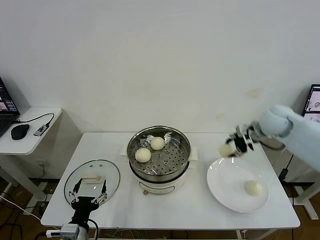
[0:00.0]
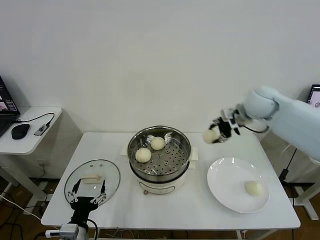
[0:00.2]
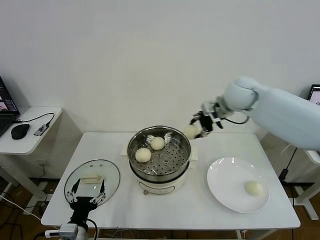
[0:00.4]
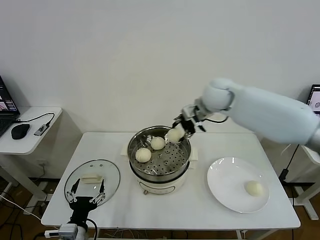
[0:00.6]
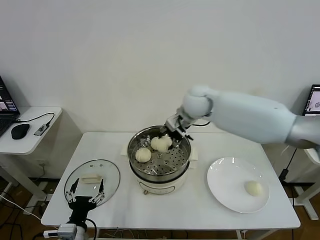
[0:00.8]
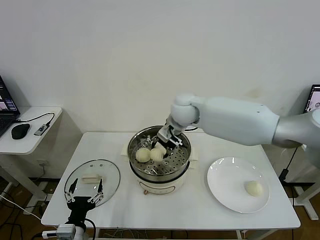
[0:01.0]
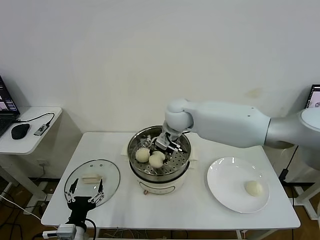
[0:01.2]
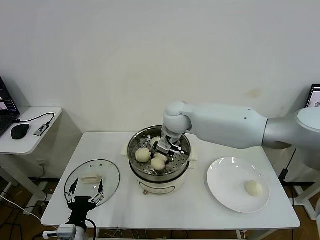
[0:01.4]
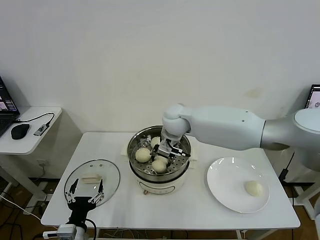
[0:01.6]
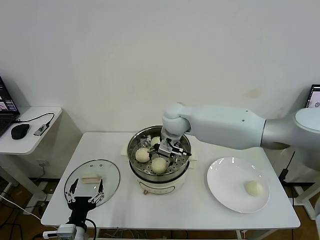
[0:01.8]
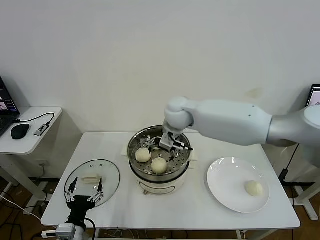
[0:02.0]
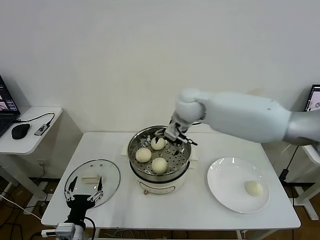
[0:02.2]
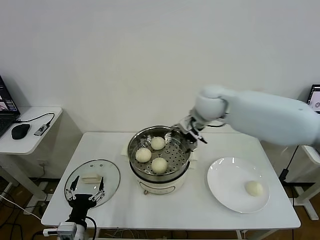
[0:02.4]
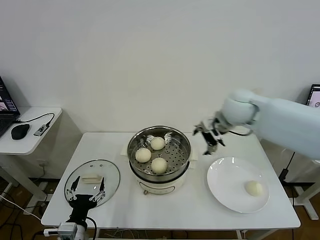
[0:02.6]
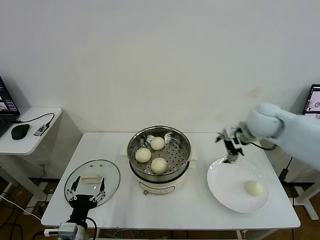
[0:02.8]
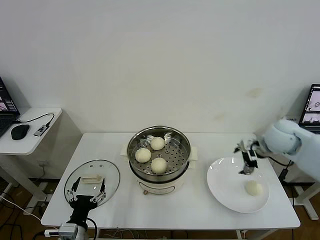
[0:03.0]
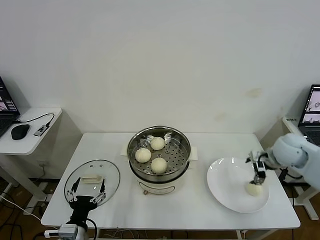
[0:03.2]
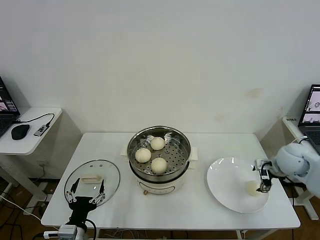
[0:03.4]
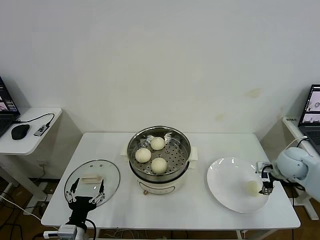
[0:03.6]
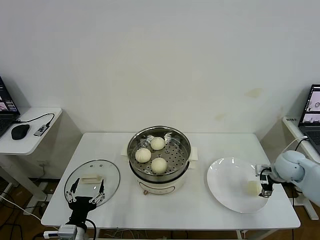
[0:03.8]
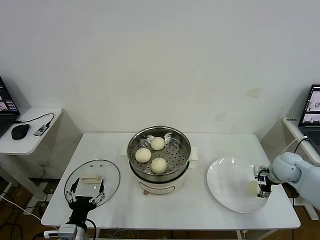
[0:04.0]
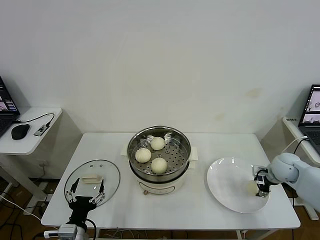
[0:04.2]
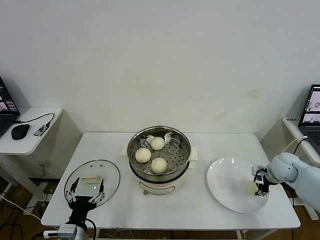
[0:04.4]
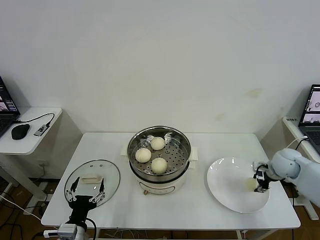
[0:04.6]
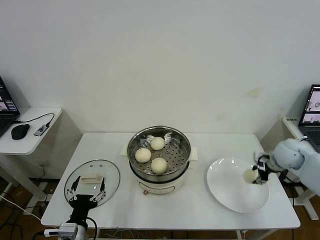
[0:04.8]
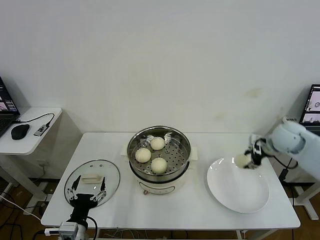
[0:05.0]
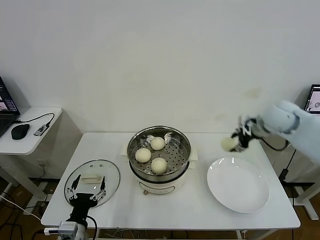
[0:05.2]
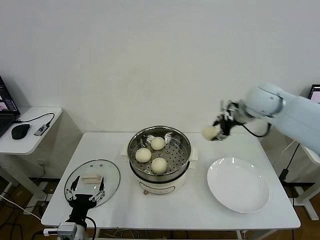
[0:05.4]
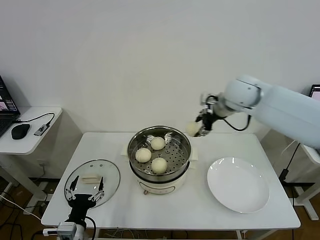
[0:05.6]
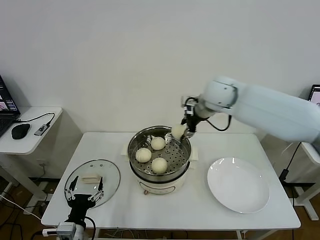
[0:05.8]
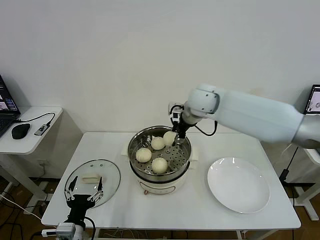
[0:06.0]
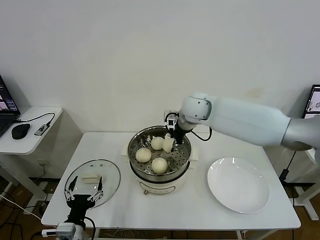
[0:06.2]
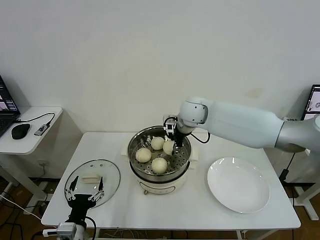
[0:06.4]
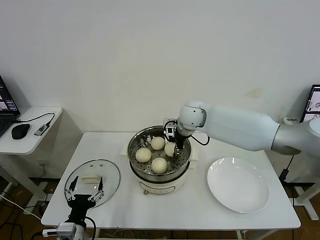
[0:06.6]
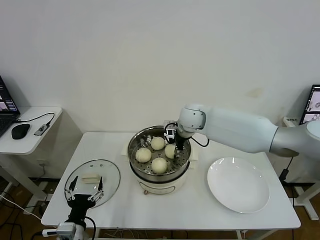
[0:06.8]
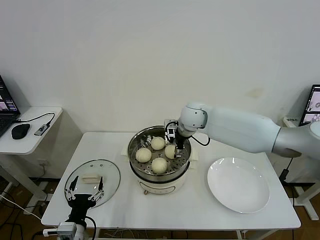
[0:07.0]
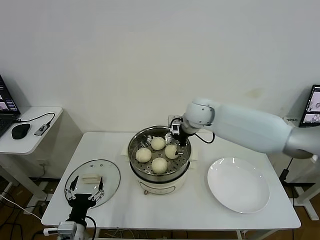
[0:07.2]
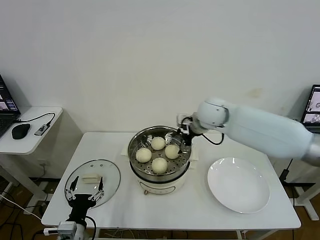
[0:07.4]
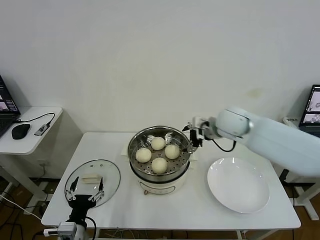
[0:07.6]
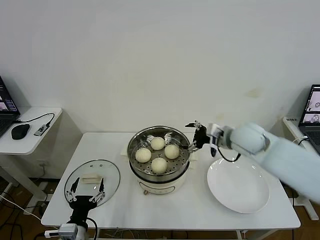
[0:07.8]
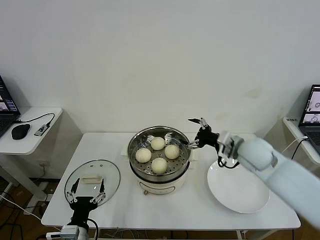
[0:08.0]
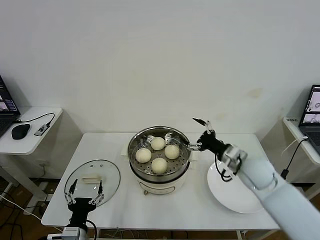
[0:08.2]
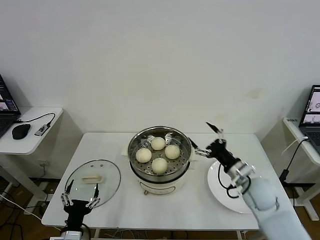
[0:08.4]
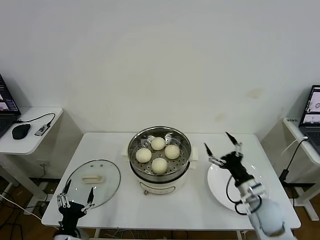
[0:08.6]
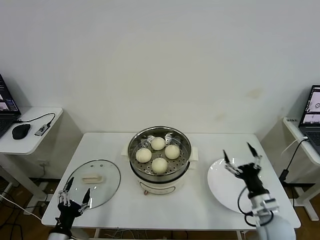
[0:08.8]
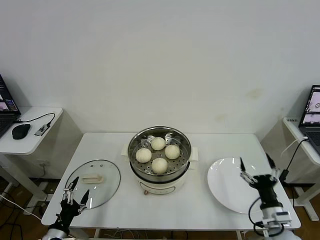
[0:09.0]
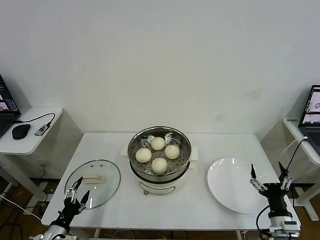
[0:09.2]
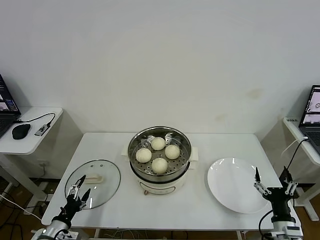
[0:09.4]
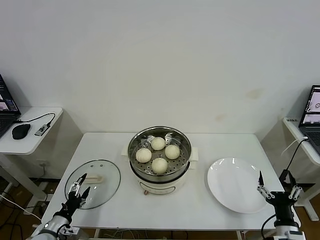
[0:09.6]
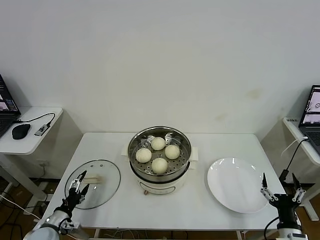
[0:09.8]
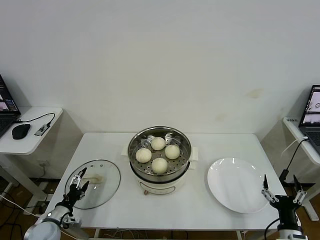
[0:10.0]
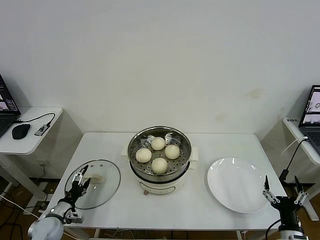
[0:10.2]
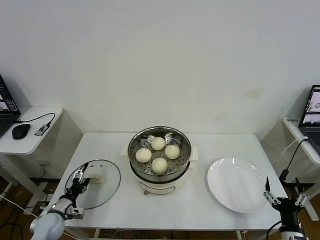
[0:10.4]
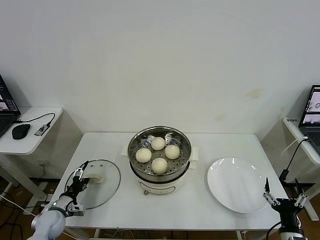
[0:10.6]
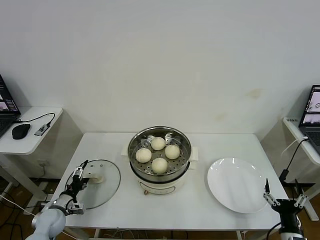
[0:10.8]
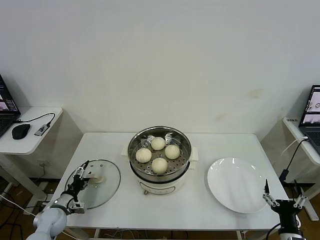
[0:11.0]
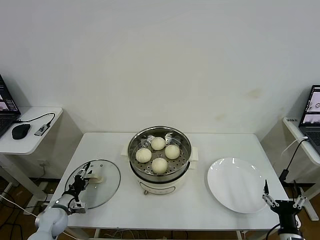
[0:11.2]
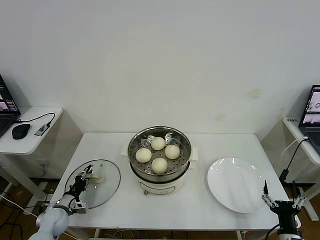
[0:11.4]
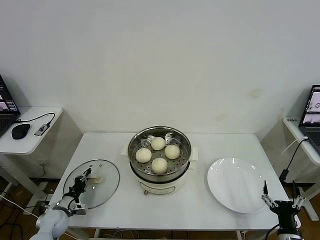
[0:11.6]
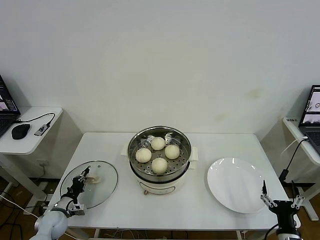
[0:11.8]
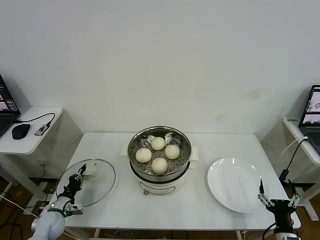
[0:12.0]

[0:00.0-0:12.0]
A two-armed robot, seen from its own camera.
Task of the whole recording: take steamed baozi put them in steamer then cover it.
Step, 0.0 to 1.8 s: Place the baozi on the steamer with right gripper.
Step, 2.0 to 4.4 s: Grasp the baozi in the plate with right gripper.
Step, 4.6 to 7.2 s: Place the baozi on the steamer with right gripper.
Step, 7.4 to 11.8 s: Grasp the pot lid with left gripper.
0.0 to 1.6 s: The right gripper is displaced to the left by approximately 30 cm.
1.6 to 3.0 s: The right gripper goes about 30 cm to the right, and opens.
3.0 to 4.4 s: The right gripper travels downward and to the right by approximately 15 cm, and closes up.
4.4 to 6.0 s: The right gripper is displaced to the left and upward by approximately 35 cm.
6.0 to 7.6 s: The right gripper is displaced to the right and backward by approximately 10 cm, and opens its fingers.
7.6 to 9.0 s: The left gripper goes roughly 10 cm to the left. Meanwhile the right gripper goes approximately 40 cm backward, downward and to the right.
9.0 to 10.4 s: The right gripper travels backward by roughly 5 cm, while the left gripper moves forward, roughly 15 cm.
10.4 to 12.0 s: The left gripper closes up.

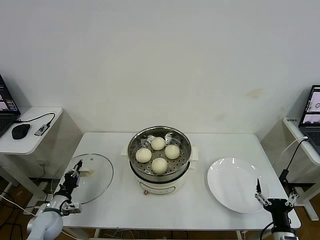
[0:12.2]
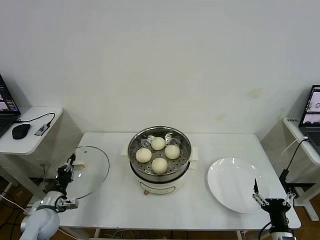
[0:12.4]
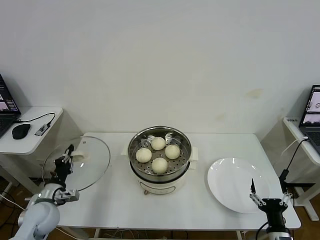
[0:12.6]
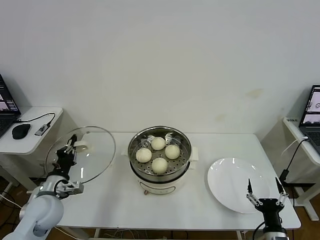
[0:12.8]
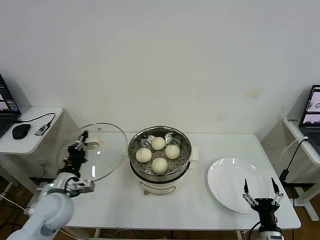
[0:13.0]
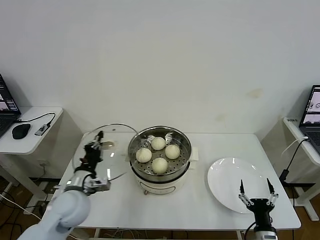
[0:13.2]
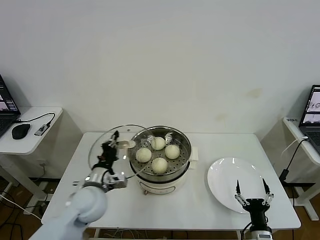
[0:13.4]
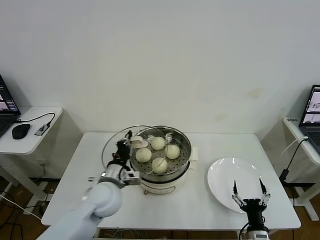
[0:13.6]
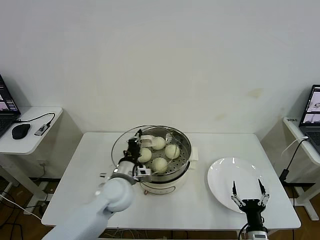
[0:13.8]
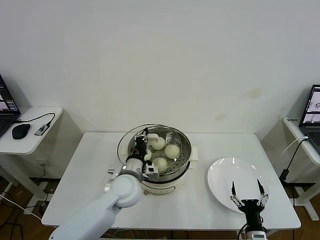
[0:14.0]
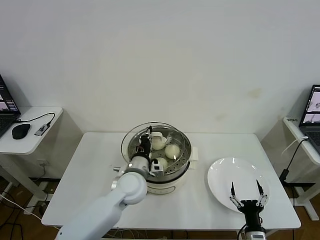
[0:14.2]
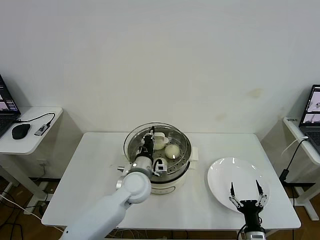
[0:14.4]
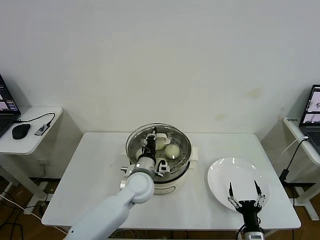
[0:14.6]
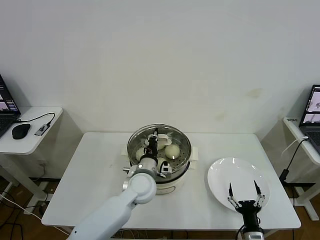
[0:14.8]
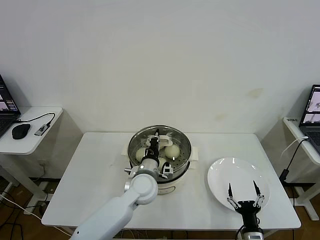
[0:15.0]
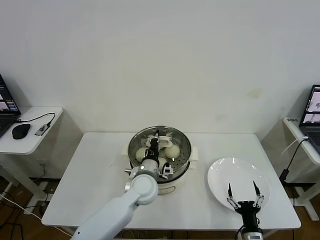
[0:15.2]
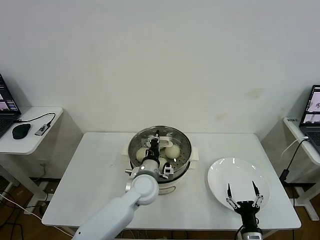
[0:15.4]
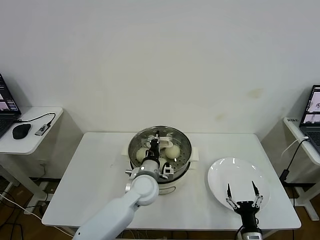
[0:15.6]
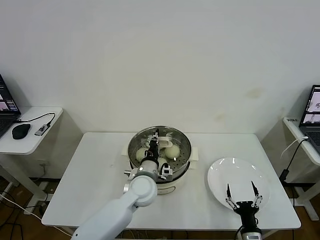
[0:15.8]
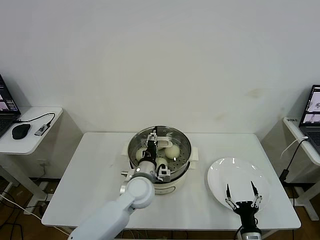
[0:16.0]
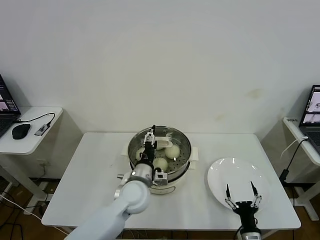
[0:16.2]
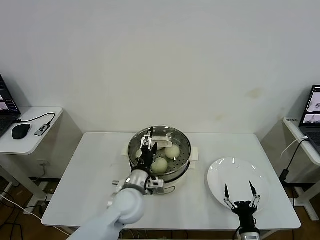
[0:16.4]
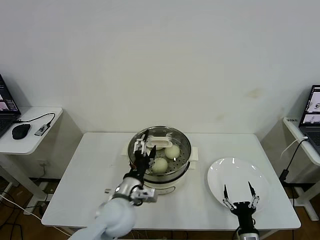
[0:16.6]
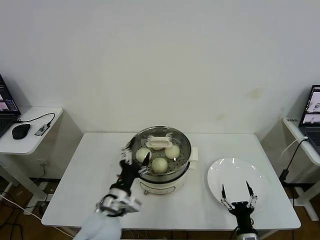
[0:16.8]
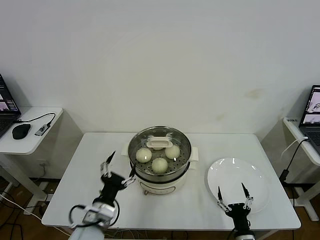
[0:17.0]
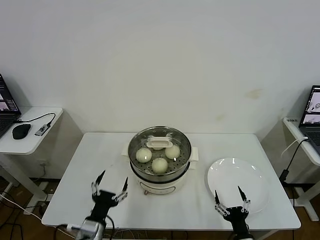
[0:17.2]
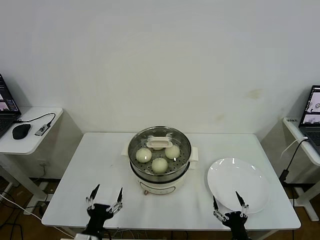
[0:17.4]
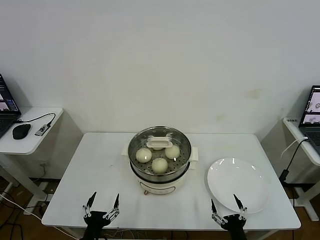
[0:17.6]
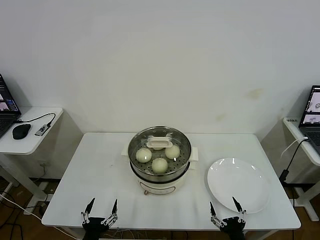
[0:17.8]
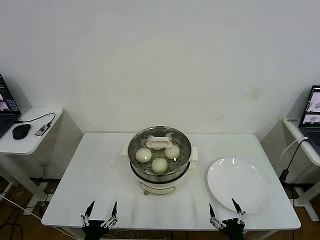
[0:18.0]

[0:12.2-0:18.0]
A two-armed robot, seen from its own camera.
Task of the whole recording: take steamed baozi put them in steamer then cover it.
Step, 12.2 to 16.2 s: Place the pot lid on the steamer with left gripper.
12.2 to 13.6 s: The right gripper shifts about 5 cm to the left; the left gripper heads to the right and upward, covering approximately 30 cm.
13.6 to 15.0 s: The left gripper travels to the right and forward by approximately 15 cm.
15.0 to 16.6 s: The left gripper goes roughly 10 cm backward, and opens its fingers.
16.6 to 18.0 s: The right gripper moves backward, some 5 cm. The left gripper heads backward, to the left and downward, covering about 25 cm.

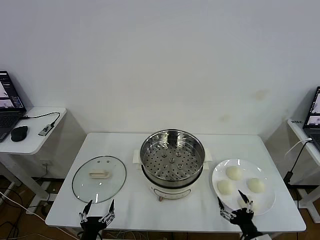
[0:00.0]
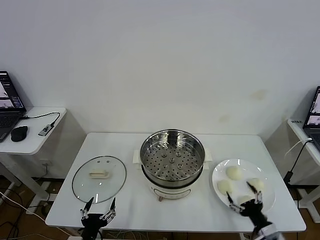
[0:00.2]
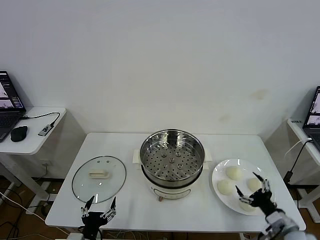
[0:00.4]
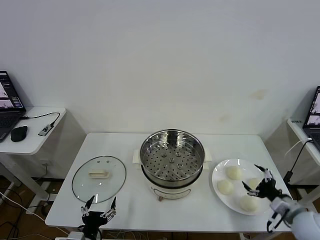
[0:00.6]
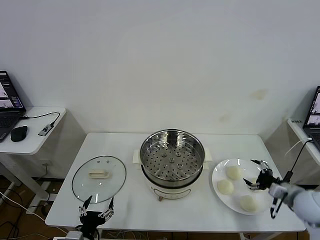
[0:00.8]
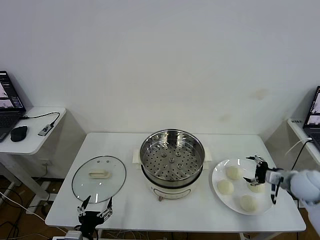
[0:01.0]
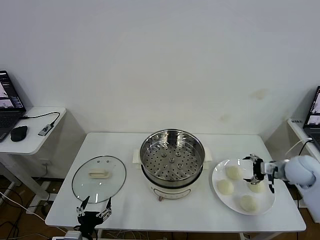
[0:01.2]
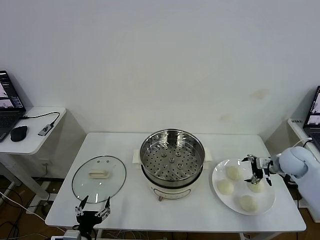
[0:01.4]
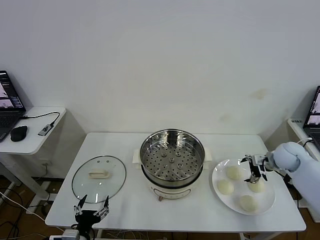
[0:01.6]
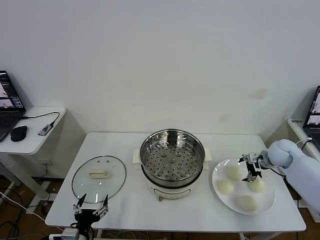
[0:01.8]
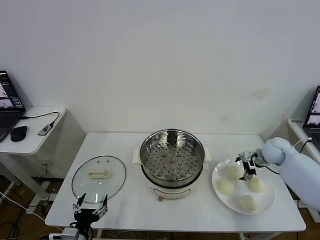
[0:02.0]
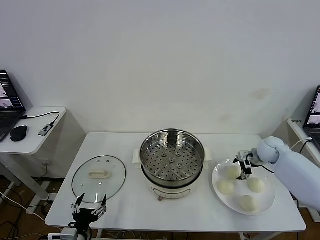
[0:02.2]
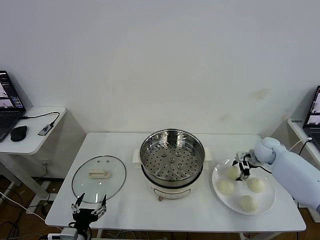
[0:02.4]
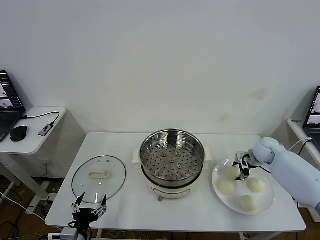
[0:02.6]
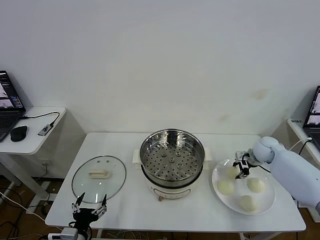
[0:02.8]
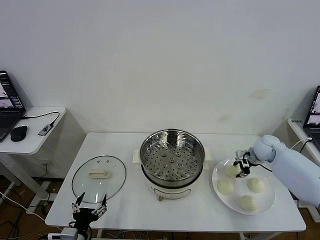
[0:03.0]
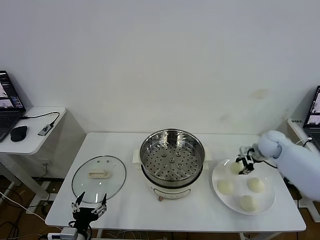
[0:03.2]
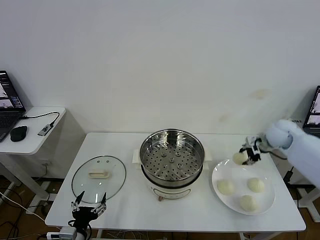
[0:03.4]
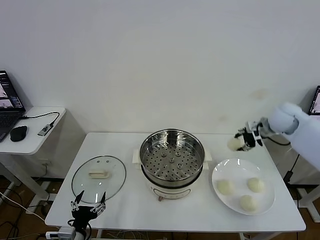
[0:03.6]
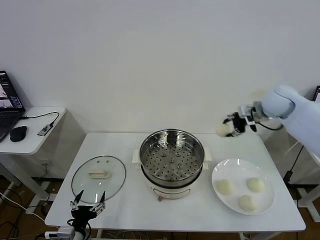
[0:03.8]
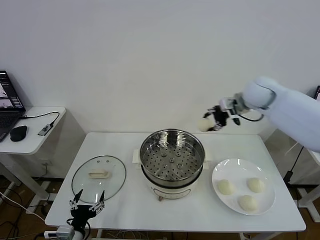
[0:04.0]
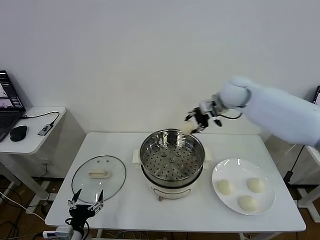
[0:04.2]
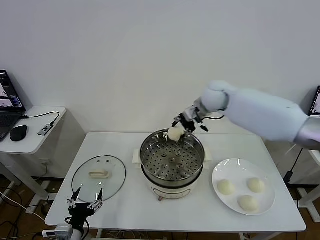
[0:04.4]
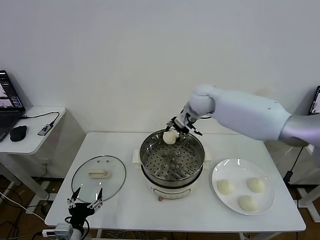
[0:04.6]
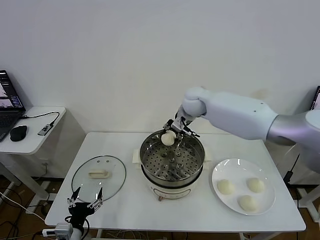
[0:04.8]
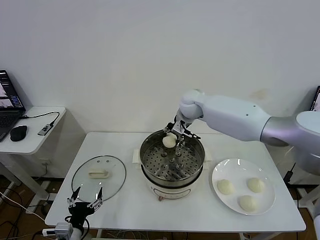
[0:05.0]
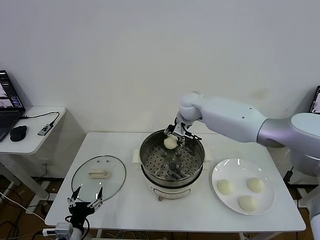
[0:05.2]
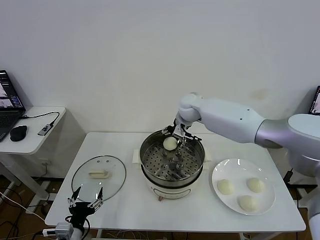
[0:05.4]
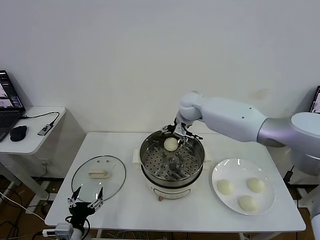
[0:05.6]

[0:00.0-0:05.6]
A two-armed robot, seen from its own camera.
Task of the whole recording: take steamed baozi put them in steamer then cover it.
Step, 0.0 to 2.6 s: Grasp the baozi in the plate with right gripper.
Step, 2.8 to 5.6 s: Place the baozi on the steamer with right gripper.
1.4 to 2.8 s: The right gripper is displaced forward by about 5 cm, and closes up.
2.8 to 4.2 s: The right gripper goes approximately 30 cm upward and to the left.
4.2 to 5.6 s: The right gripper is displaced to the left and downward by about 10 cm, and opens its fingers.
